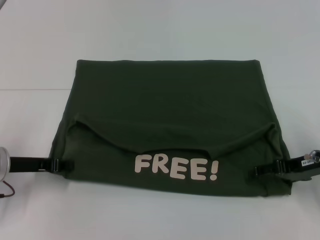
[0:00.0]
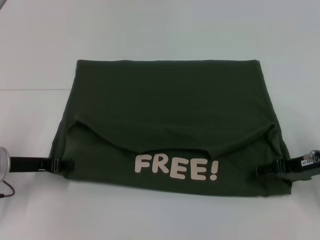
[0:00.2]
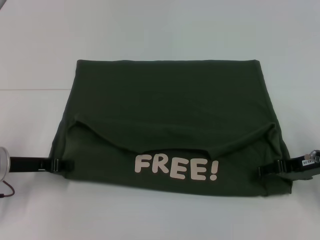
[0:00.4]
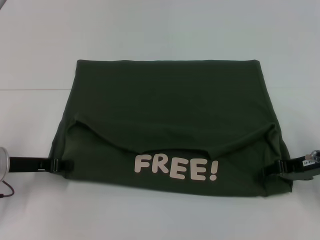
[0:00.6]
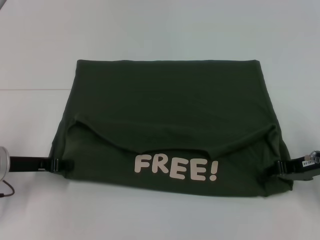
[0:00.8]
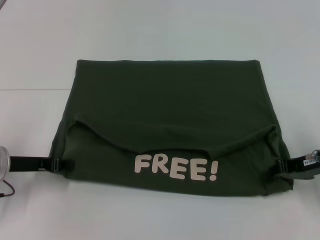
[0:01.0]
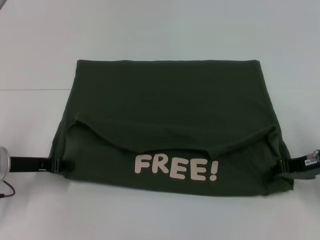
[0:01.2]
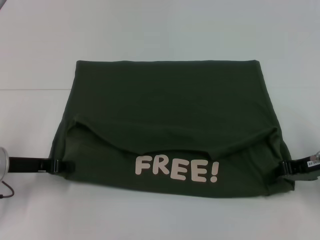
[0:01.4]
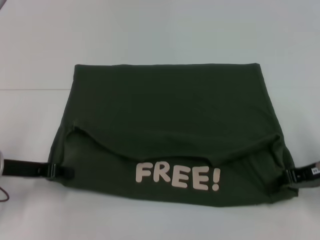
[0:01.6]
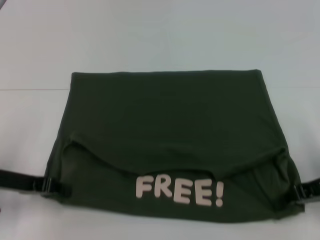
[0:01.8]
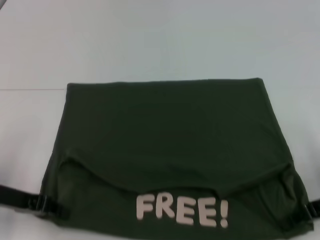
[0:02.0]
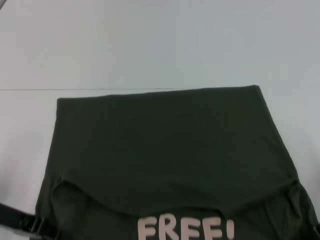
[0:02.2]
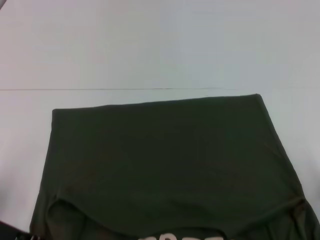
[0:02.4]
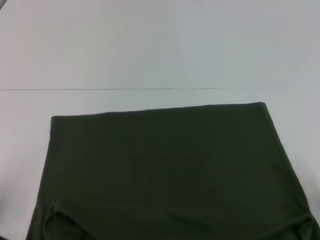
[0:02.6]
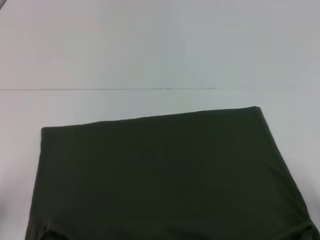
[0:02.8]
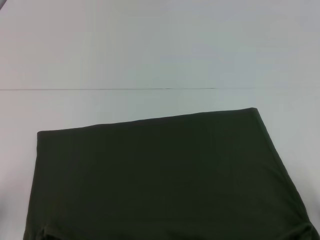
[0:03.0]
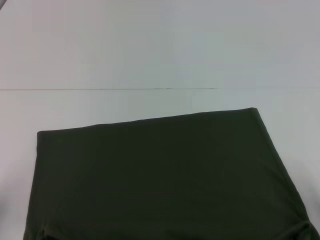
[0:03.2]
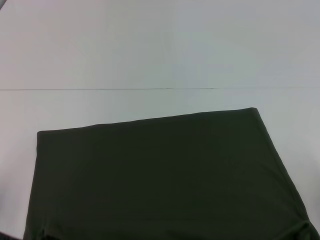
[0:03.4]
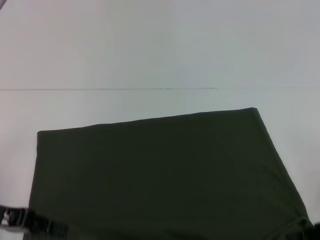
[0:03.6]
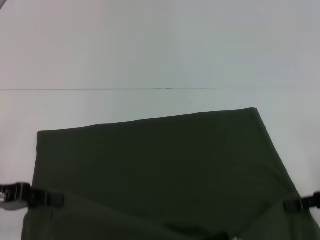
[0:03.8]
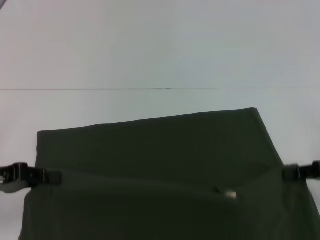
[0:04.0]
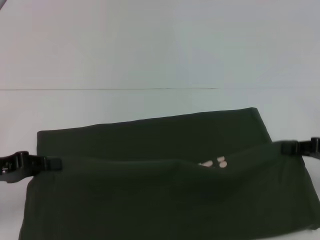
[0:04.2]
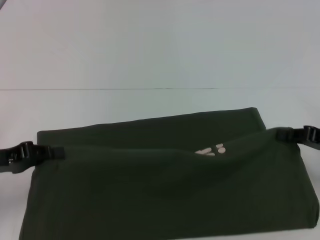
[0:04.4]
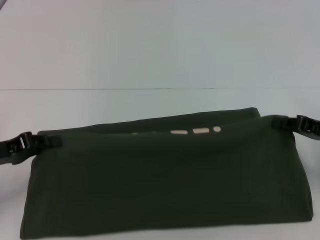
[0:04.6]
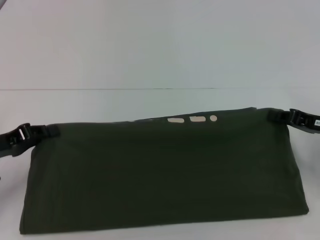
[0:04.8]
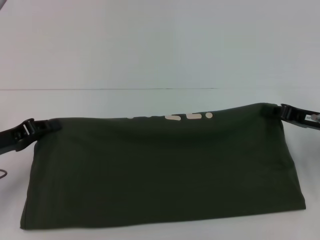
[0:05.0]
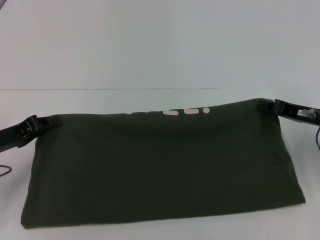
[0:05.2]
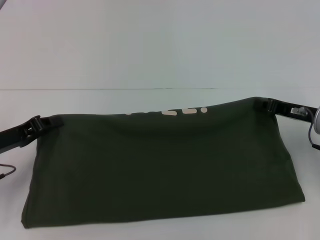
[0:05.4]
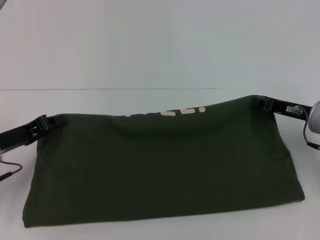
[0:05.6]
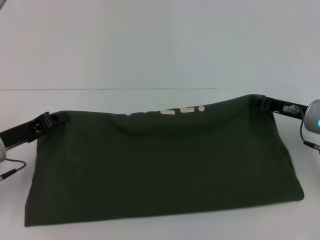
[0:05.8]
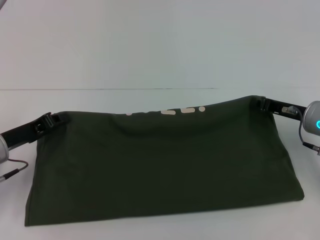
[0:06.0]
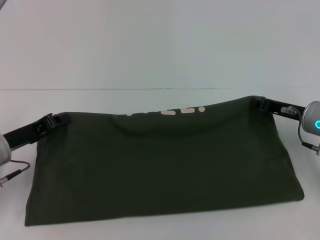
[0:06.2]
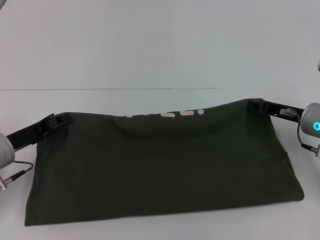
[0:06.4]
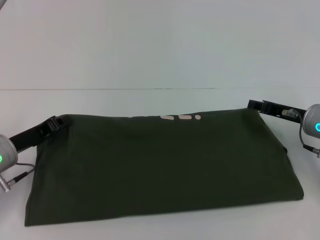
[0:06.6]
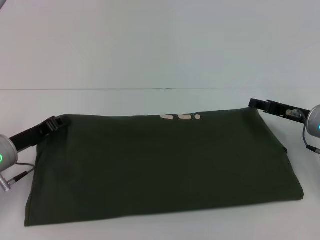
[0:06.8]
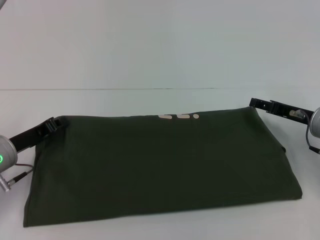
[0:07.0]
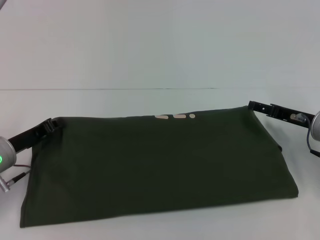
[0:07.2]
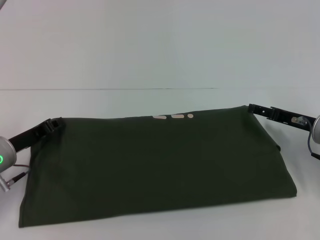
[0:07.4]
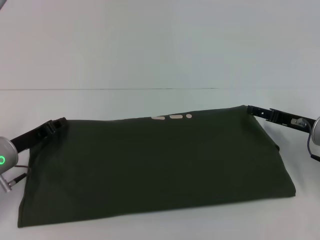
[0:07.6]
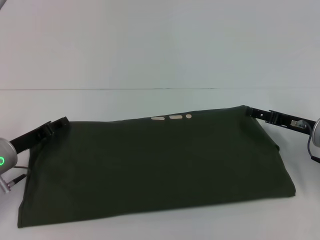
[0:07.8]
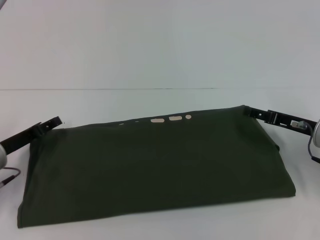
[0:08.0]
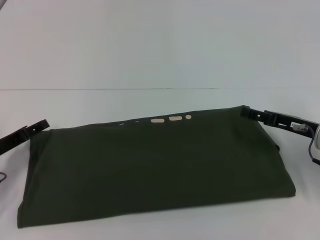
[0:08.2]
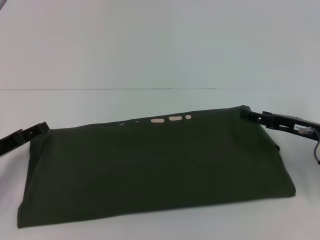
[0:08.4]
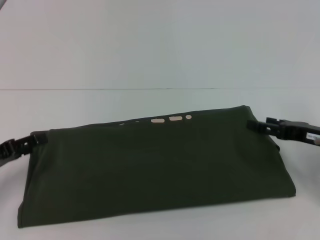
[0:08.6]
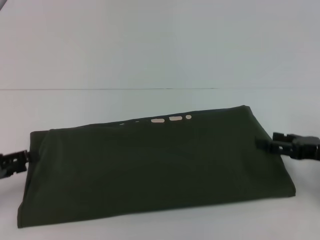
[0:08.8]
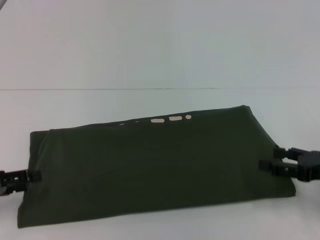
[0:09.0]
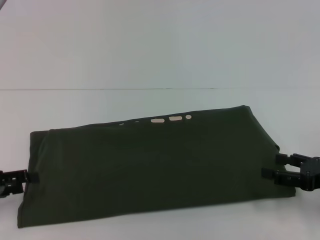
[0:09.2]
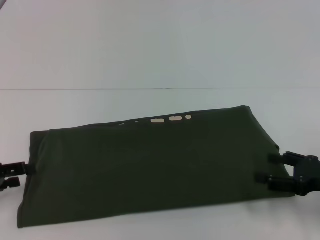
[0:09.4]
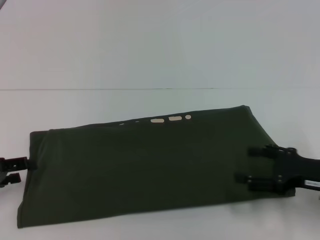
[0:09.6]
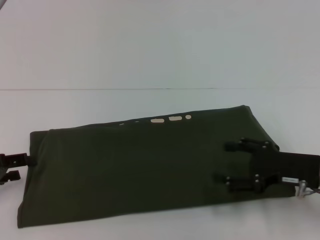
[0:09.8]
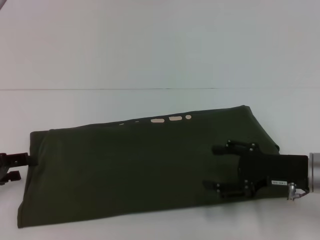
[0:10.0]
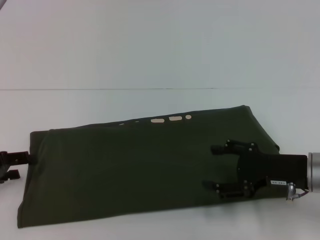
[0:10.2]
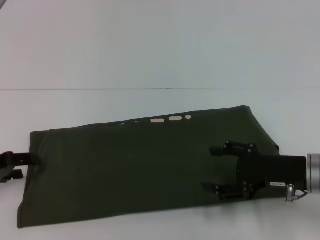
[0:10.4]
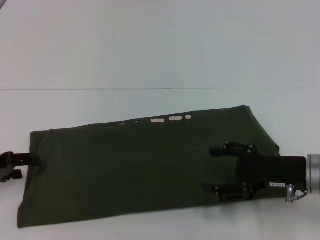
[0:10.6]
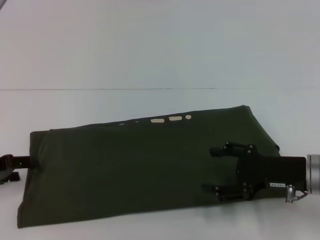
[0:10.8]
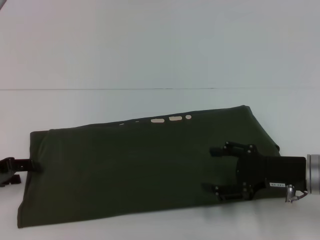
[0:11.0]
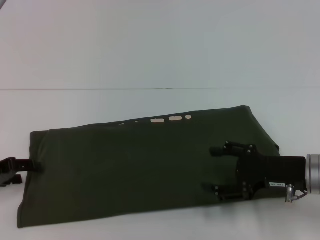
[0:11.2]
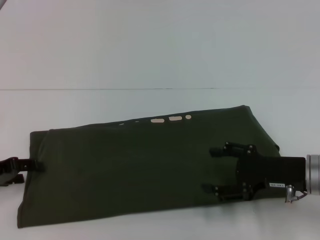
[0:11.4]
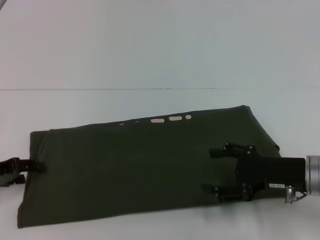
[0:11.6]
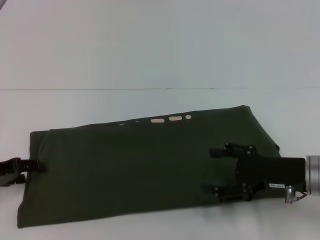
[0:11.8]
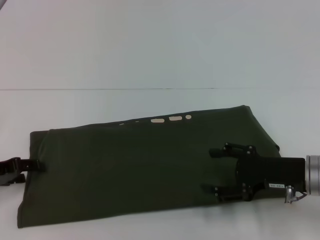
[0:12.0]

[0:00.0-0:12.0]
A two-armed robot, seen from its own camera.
Step, 0:00.0 to 0:02.8: Pull the clothes with your left hand.
Step, 0:00.0 to 0:02.8: Pull the clothes with your right hand.
Step, 0:03.0 to 0:07.8: Fold the clothes with your right hand.
0:00.0 to 0:01.6: The right gripper closes up.
0:01.6 to 0:03.0: The grippers both shift backward by some 10 cm.
0:03.0 to 0:04.4: The right gripper travels forward by about 5 cm. The left gripper changes place by roughly 5 cm.
0:04.4 to 0:06.0: The right gripper moves to the left and forward, approximately 10 cm. Meanwhile the left gripper ends up some 5 cm from where it was.
0:06.0 to 0:07.6: The right gripper opens its fingers.
0:07.6 to 0:09.0: The right gripper shifts roughly 10 cm backward; the left gripper moves to the left and backward, some 10 cm, and opens its fingers.
0:09.0 to 0:10.4: The right gripper moves to the left, approximately 10 cm.
0:10.4 to 0:12.0: The grippers move only a little.

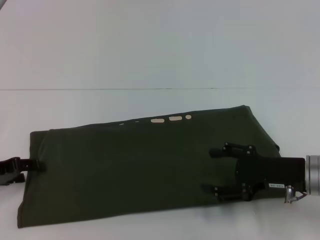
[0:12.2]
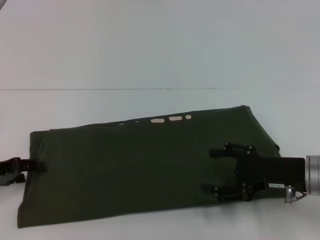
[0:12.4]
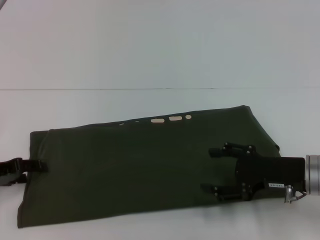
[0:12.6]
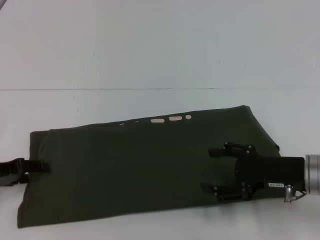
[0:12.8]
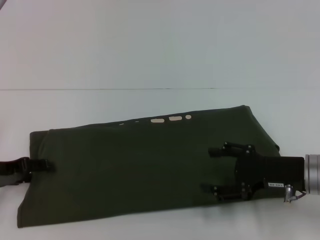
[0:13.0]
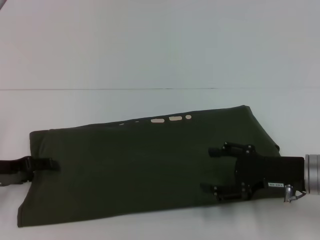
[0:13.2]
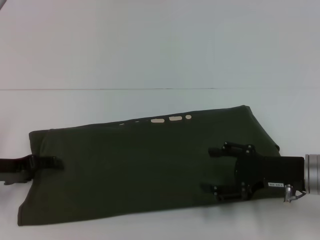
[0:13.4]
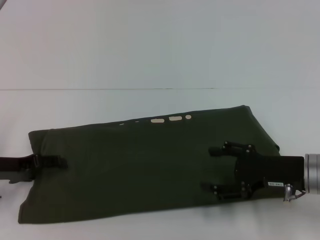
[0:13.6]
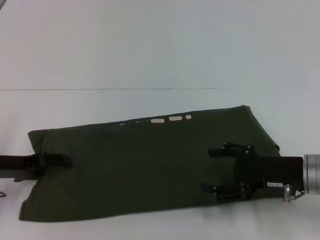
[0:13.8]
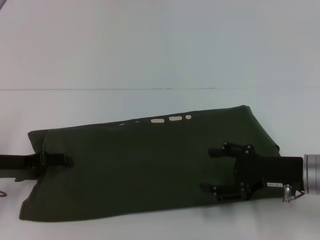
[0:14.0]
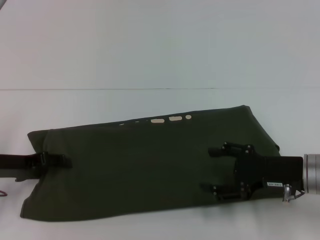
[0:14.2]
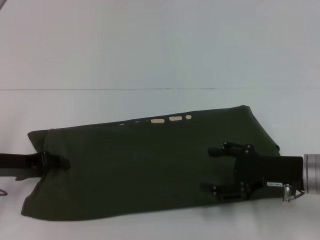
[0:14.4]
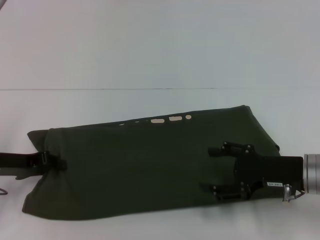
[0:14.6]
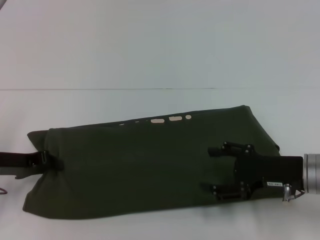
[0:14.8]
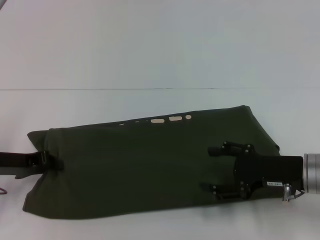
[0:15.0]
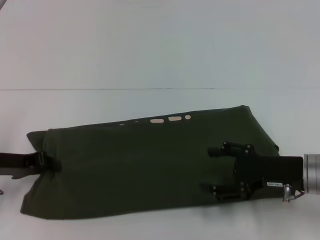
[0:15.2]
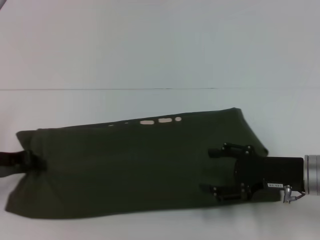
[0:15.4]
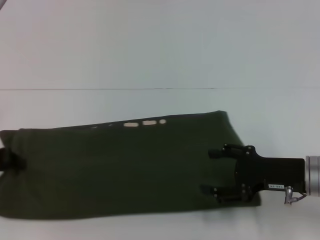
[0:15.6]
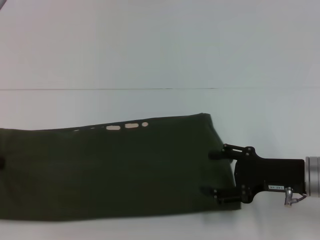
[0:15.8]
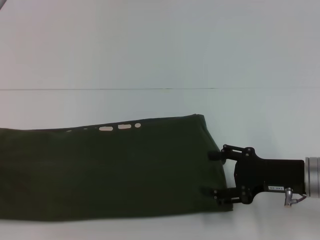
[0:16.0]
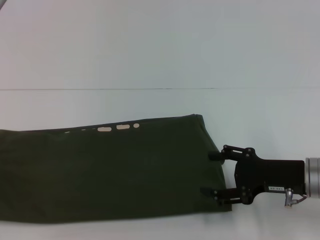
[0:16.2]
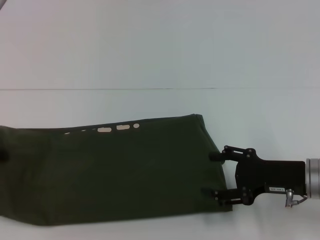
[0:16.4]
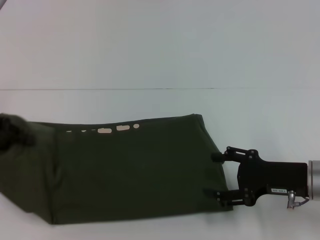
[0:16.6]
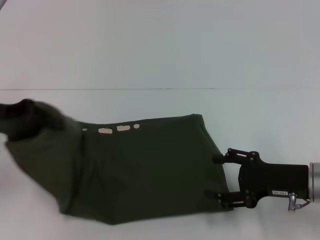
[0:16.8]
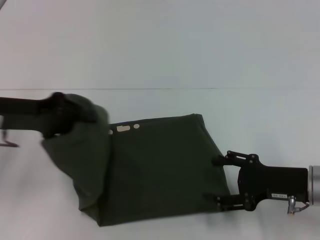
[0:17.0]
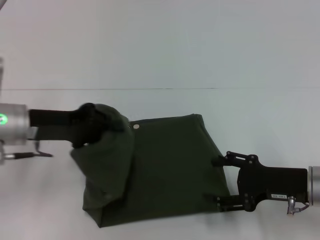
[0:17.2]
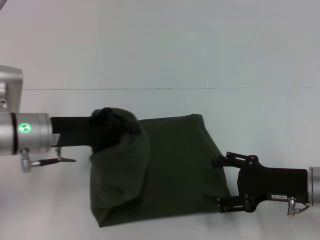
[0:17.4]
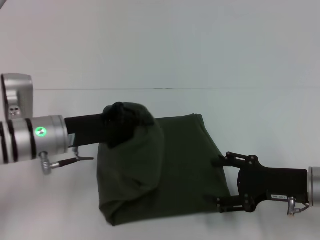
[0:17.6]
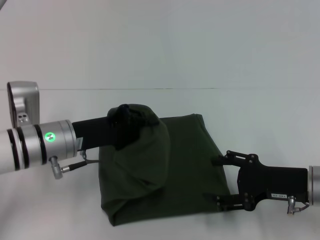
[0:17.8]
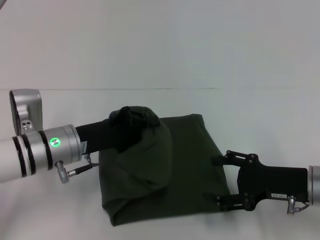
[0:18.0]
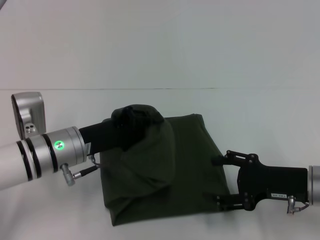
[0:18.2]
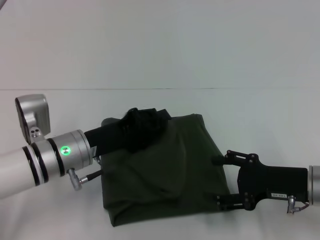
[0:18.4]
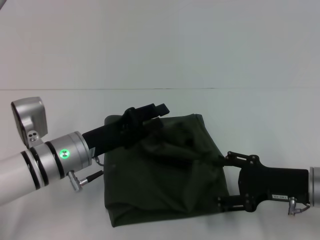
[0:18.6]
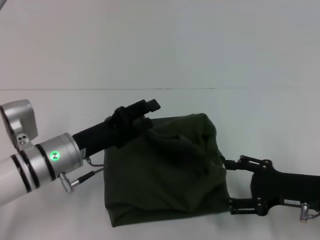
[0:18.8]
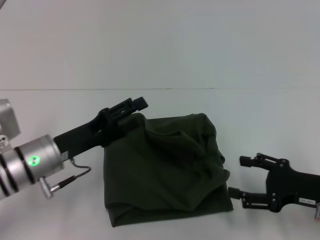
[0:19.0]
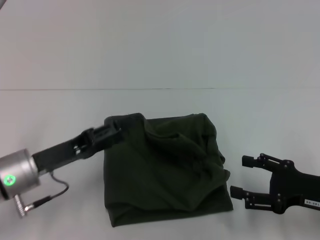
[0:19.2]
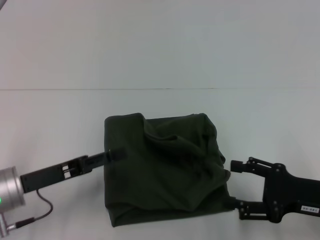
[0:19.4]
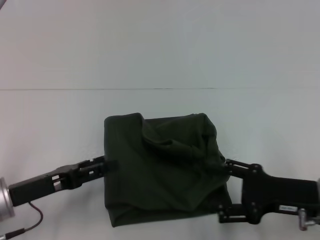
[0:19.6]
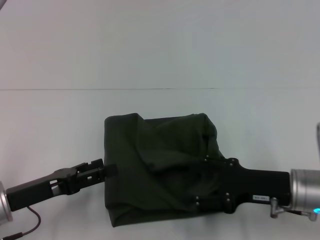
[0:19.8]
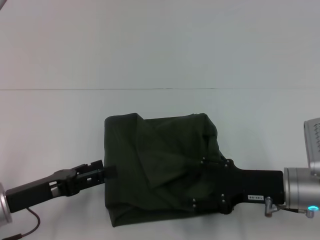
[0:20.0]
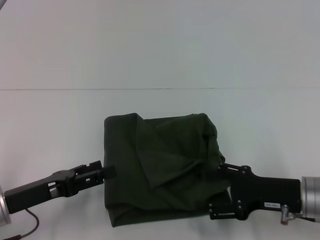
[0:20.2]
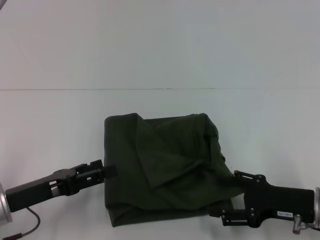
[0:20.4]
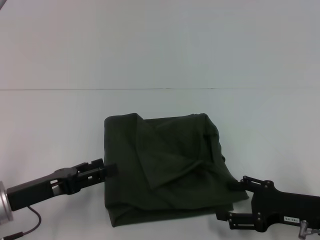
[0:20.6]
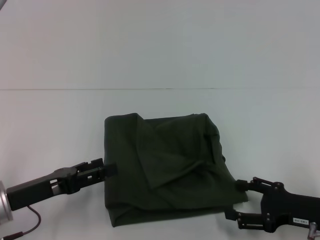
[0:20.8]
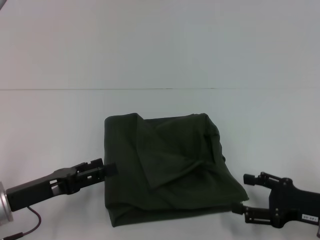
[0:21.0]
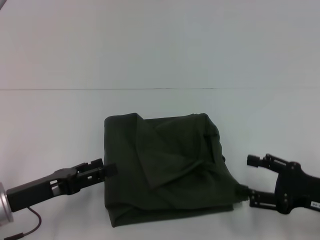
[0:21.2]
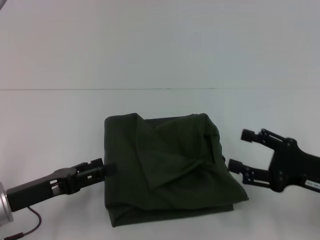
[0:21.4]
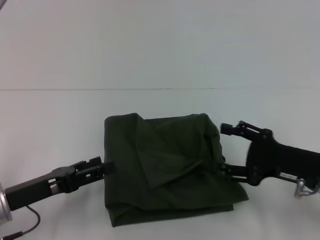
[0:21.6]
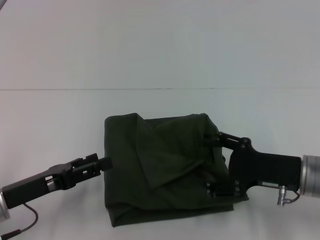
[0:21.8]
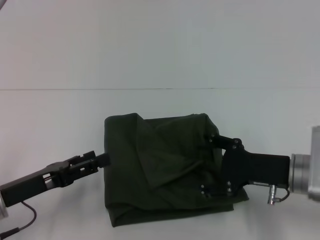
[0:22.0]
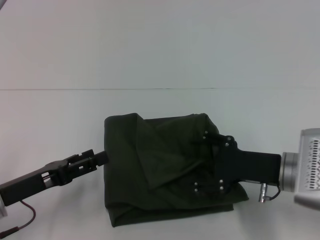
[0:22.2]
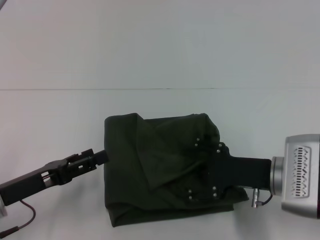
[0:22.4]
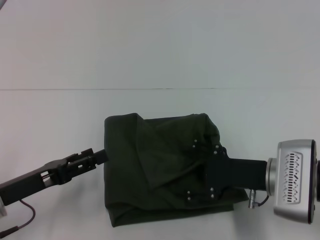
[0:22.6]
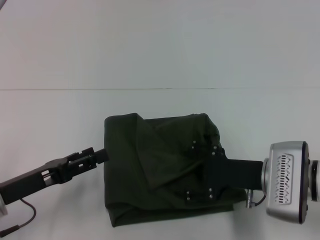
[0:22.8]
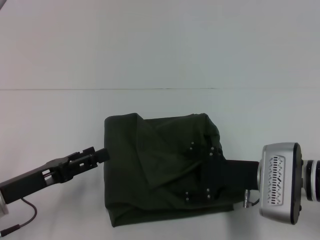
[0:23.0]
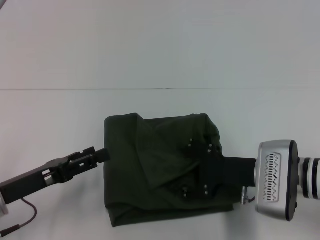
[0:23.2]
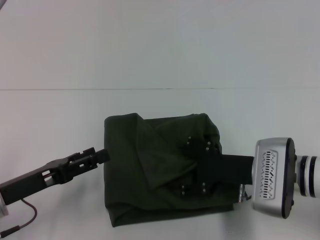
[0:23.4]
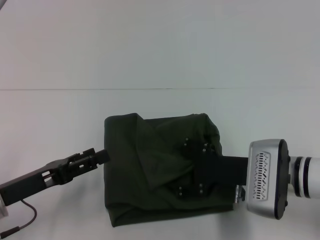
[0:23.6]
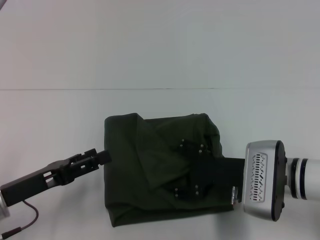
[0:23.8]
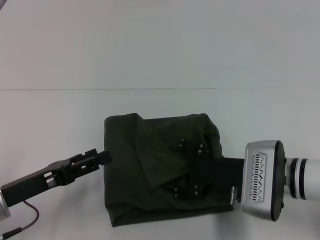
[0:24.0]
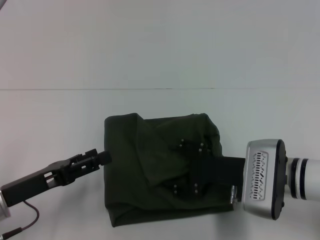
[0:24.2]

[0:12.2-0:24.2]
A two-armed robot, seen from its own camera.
Step, 0:12.2 to 0:18.8: Fold the clothes with your left hand.
0:12.2 to 0:13.8: The grippers stay close to where they were, moving slightly.
0:13.8 to 0:15.2: The left gripper closes up.
0:15.2 to 0:16.6: The left gripper travels upward by approximately 10 cm.
0:16.6 to 0:18.2: The left gripper moves to the right and downward, roughly 20 cm.
0:18.2 to 0:19.8: The left gripper shifts roughly 10 cm to the left and backward, and opens.
0:19.8 to 0:21.2: The right gripper is displaced to the right by roughly 5 cm.
0:21.2 to 0:22.6: The right gripper is displaced to the left and forward by approximately 10 cm.
0:22.6 to 0:24.2: There are only small adjustments of the grippers.
